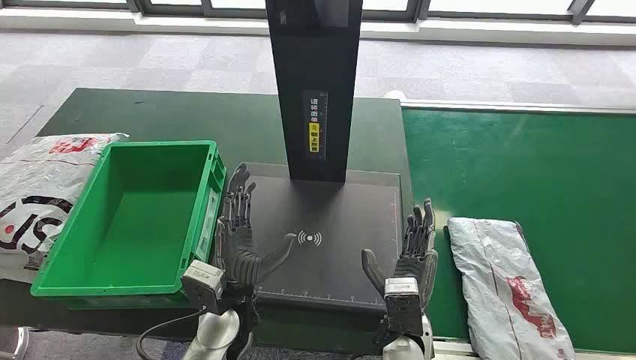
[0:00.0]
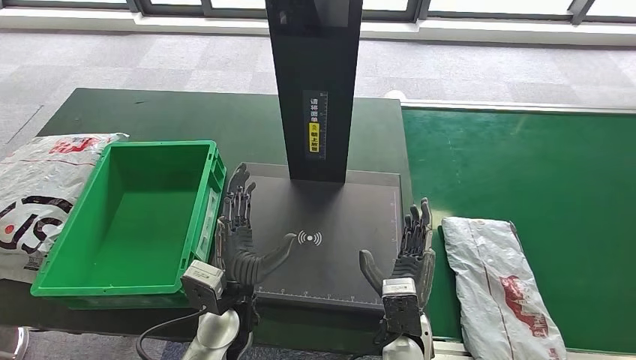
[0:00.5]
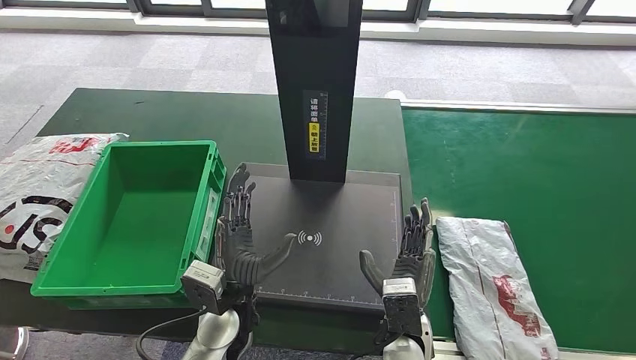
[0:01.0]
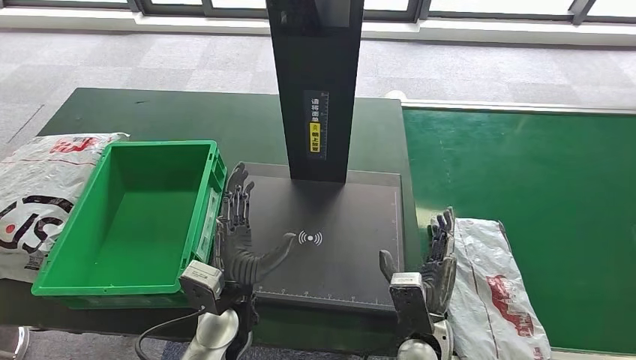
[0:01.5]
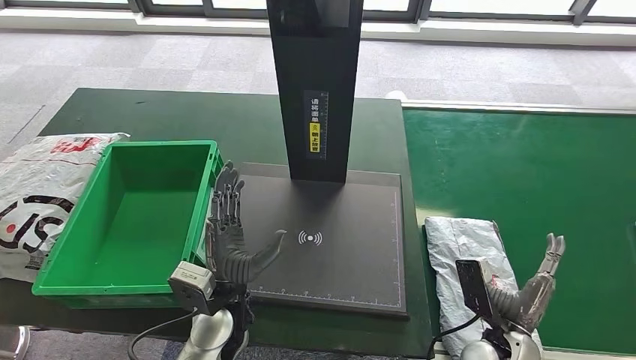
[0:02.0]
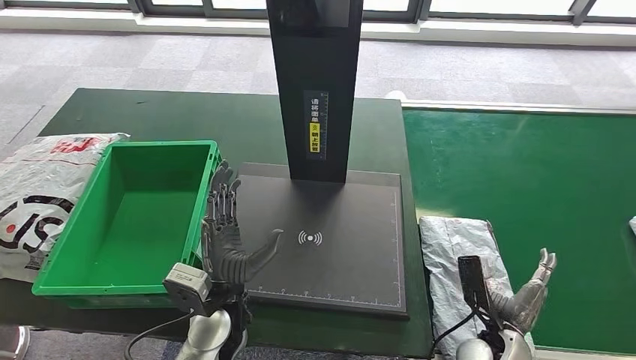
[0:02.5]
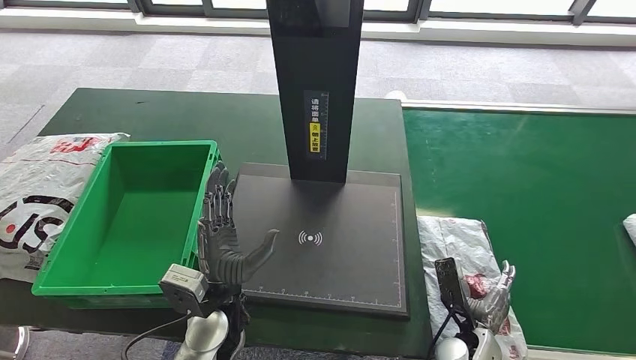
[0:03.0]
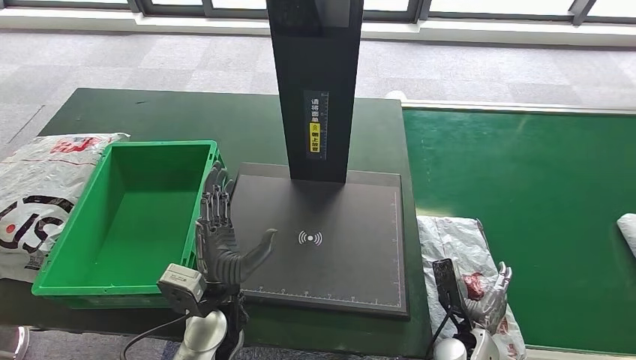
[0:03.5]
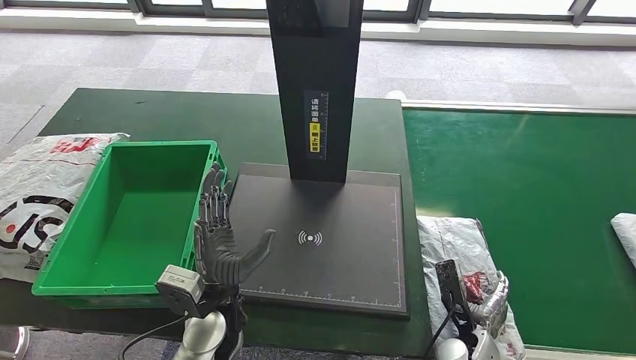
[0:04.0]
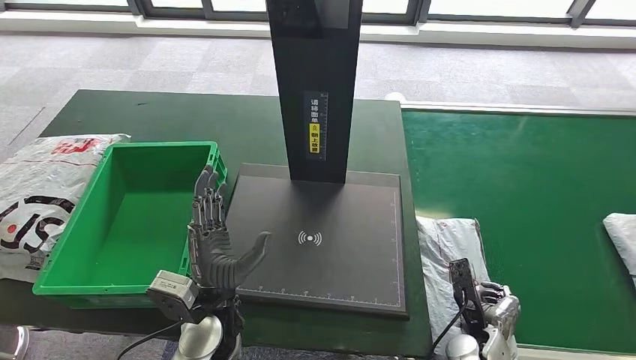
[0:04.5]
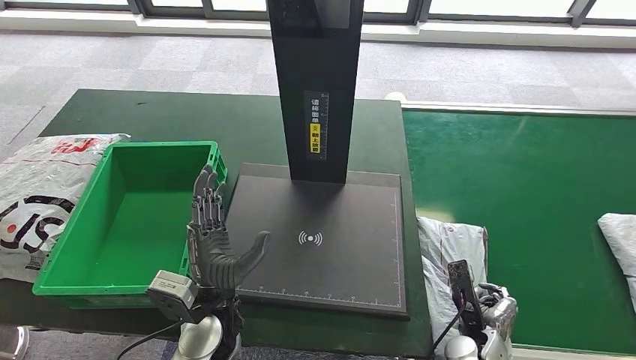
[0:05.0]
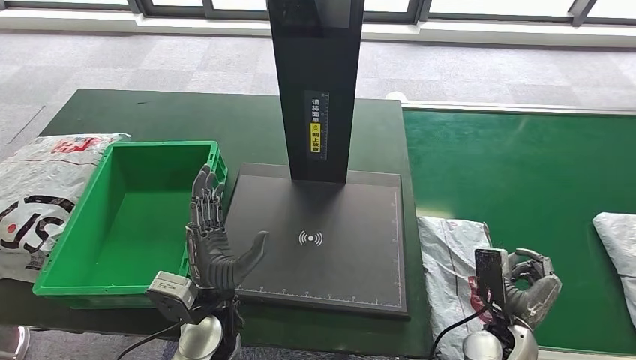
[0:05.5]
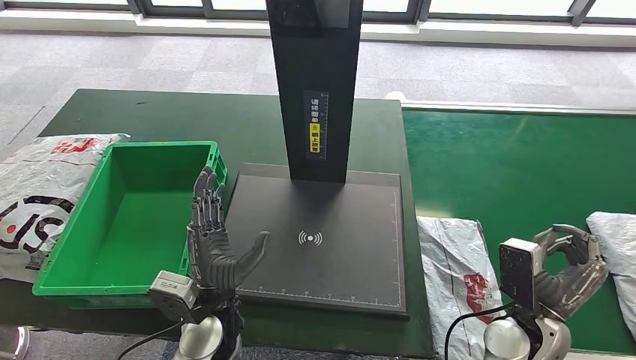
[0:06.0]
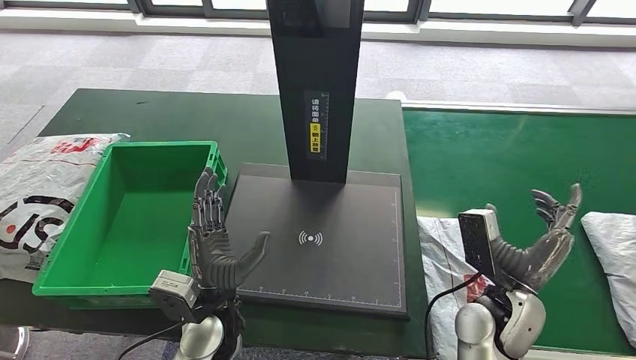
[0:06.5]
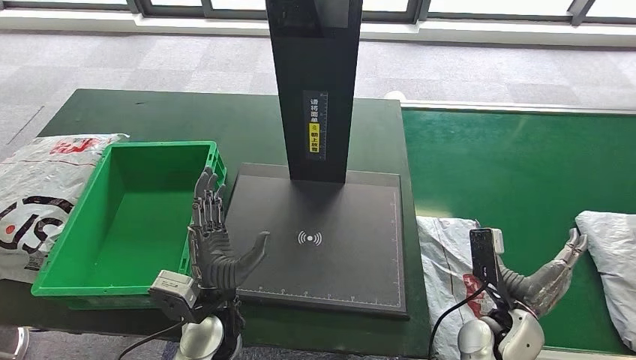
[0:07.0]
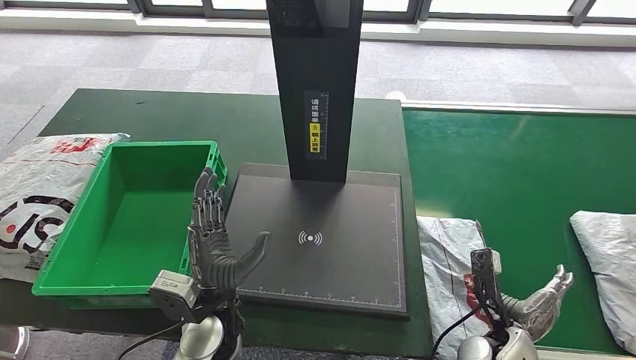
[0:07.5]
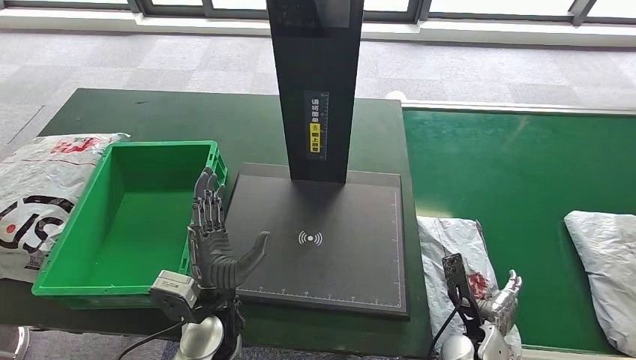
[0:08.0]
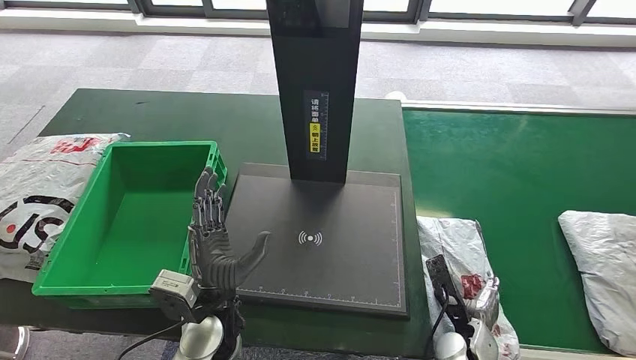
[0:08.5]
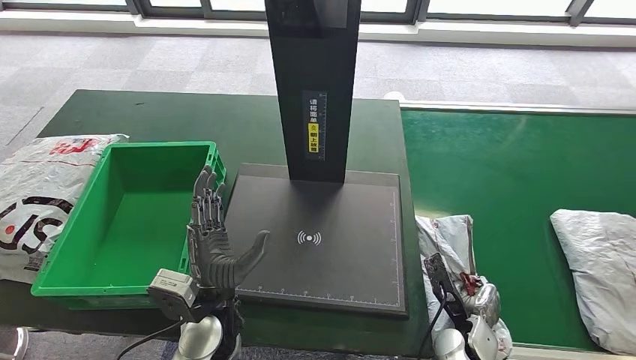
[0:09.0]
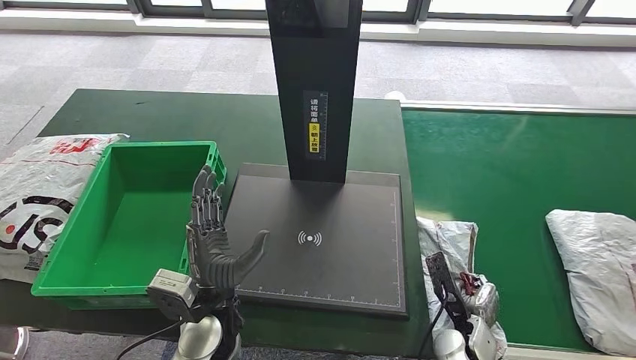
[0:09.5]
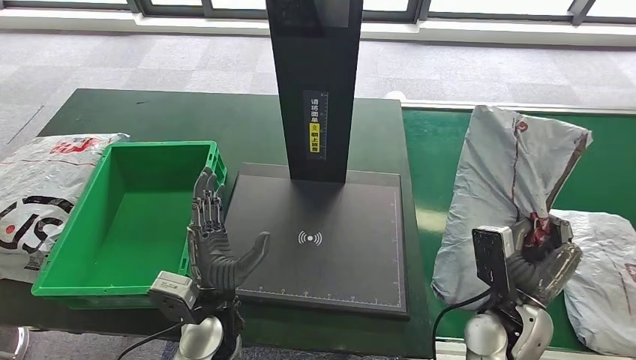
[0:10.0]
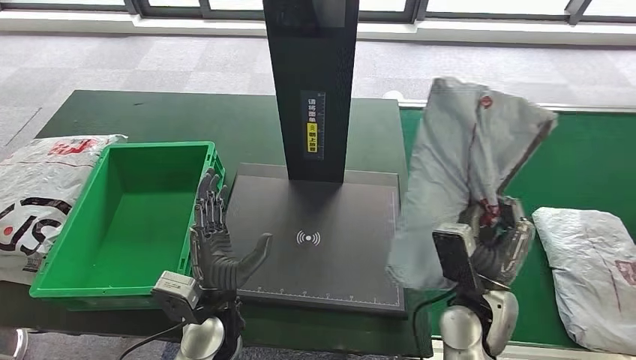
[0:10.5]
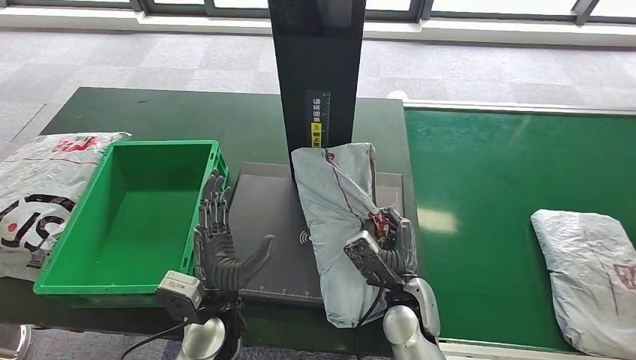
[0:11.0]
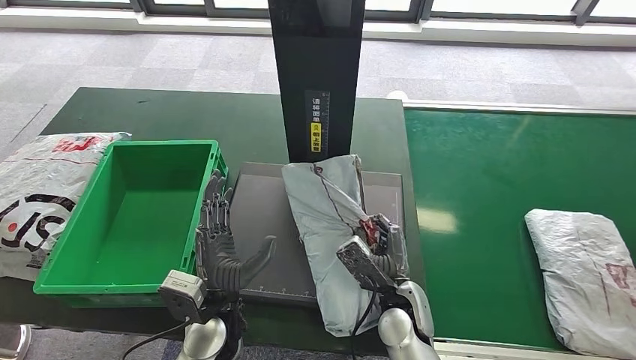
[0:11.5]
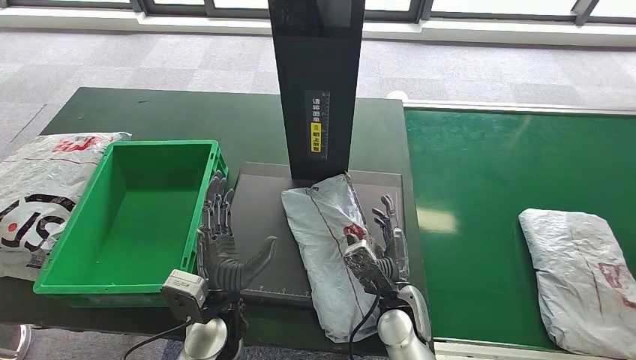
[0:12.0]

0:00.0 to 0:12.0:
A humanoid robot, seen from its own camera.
Step, 0:00.0 to 0:10.0: Take the parcel off the conveyor belt.
0:02.0 to 0:04.0: The right hand goes about 10 cm downward.
0:04.0 to 0:06.0: The right hand travels upward by about 10 cm.
0:06.0 to 0:08.0: The right hand shifts approximately 10 cm downward.
0:08.0 to 0:10.0: The right hand shifts some 10 cm upward.

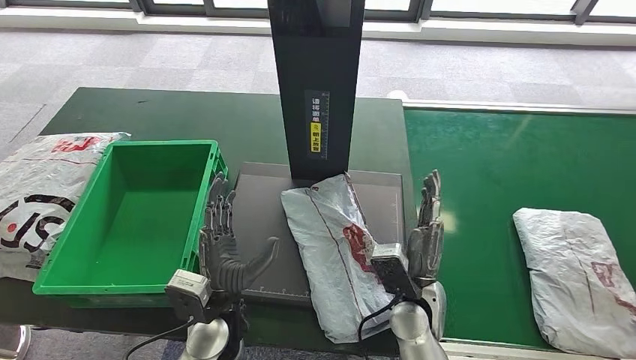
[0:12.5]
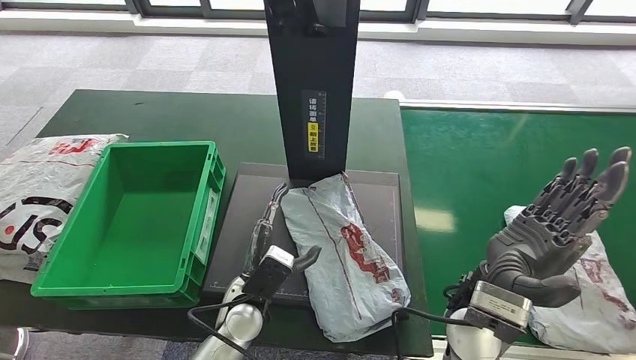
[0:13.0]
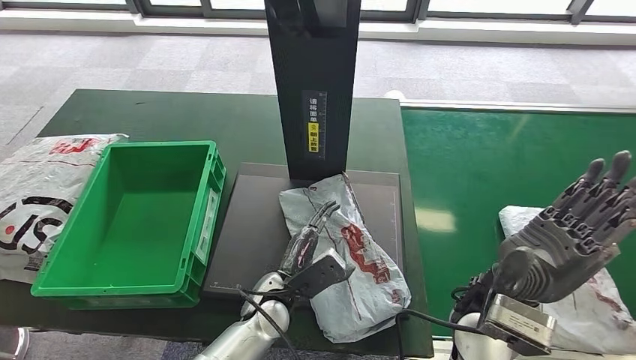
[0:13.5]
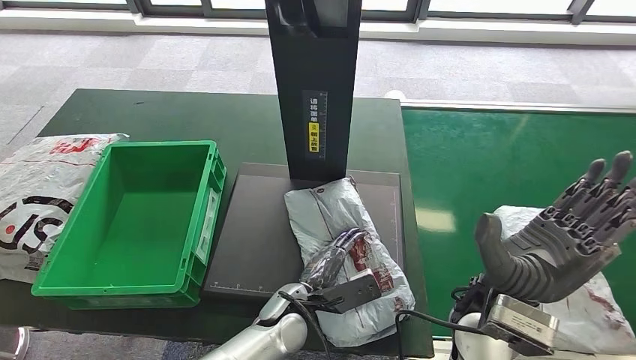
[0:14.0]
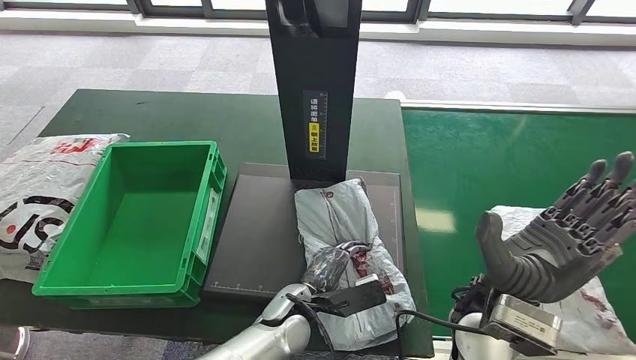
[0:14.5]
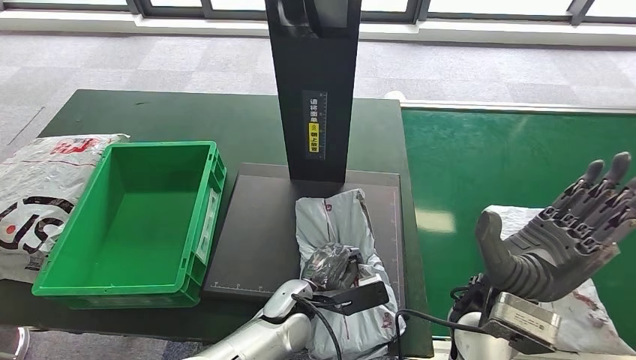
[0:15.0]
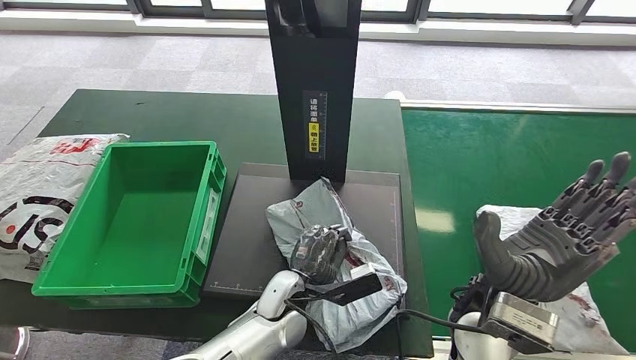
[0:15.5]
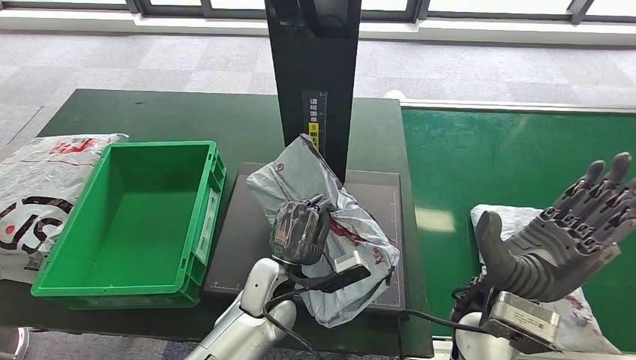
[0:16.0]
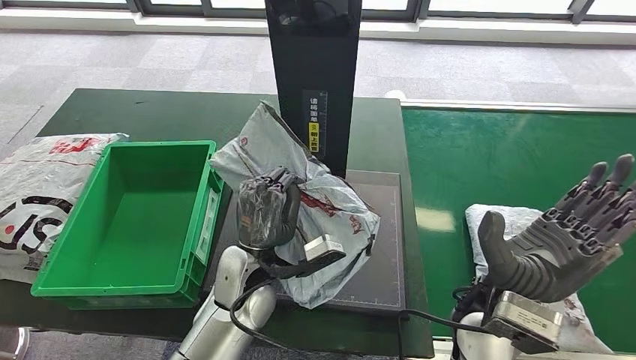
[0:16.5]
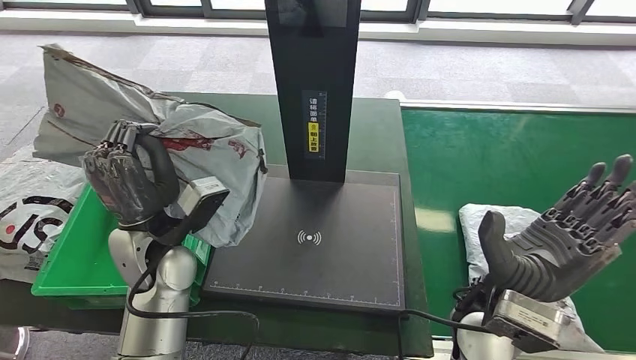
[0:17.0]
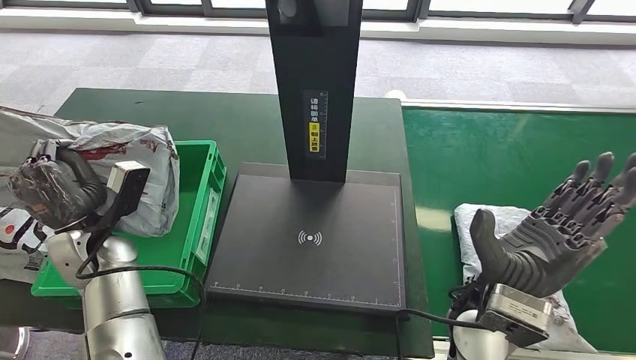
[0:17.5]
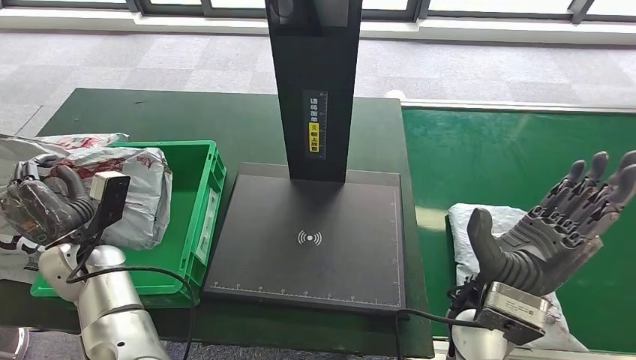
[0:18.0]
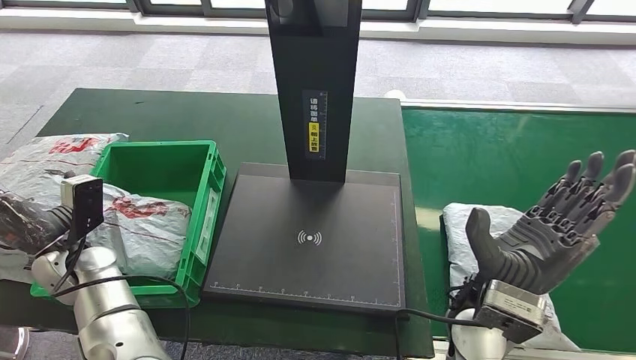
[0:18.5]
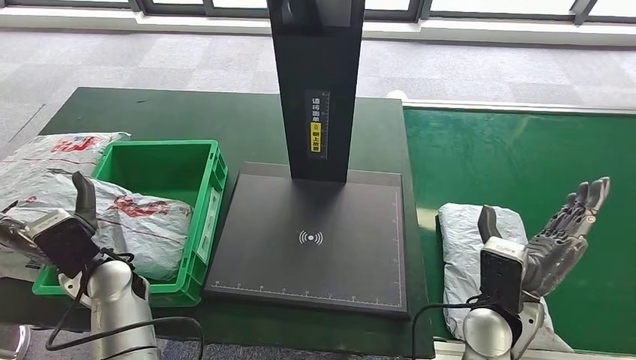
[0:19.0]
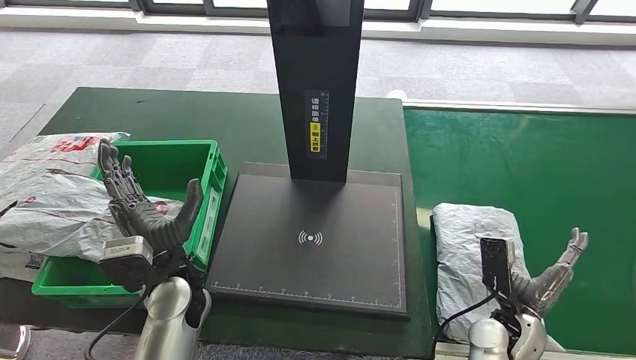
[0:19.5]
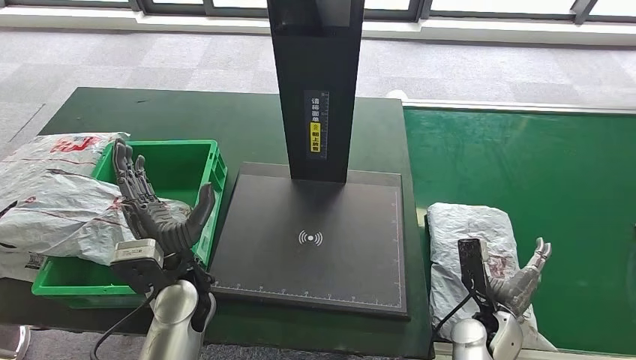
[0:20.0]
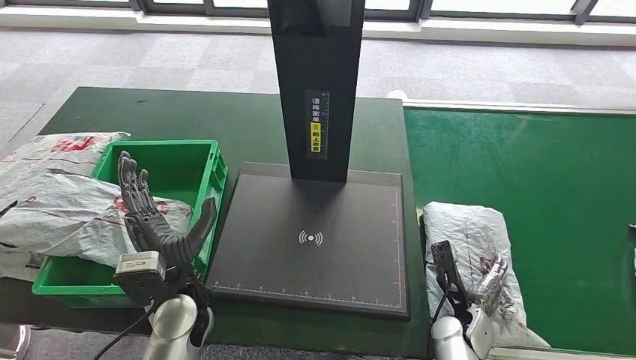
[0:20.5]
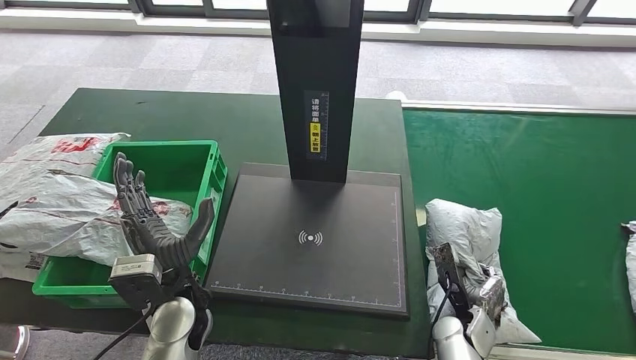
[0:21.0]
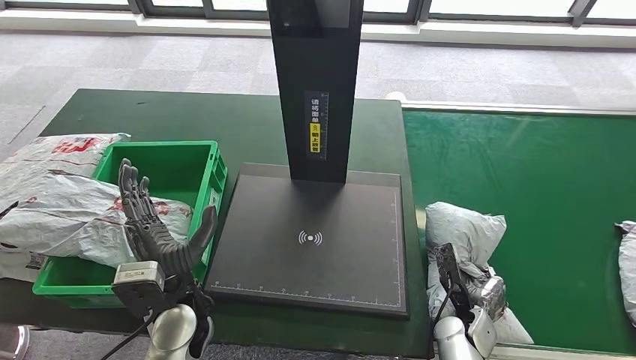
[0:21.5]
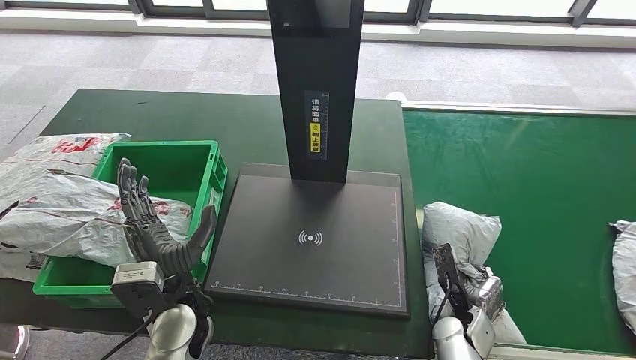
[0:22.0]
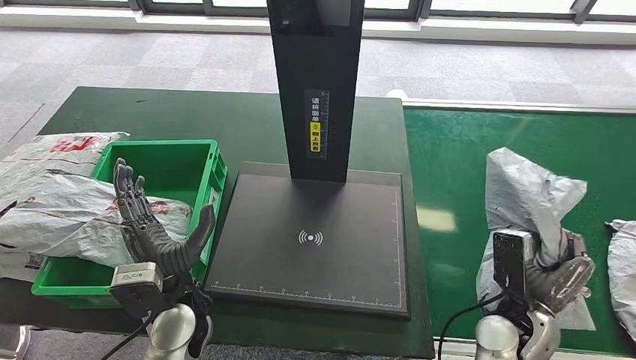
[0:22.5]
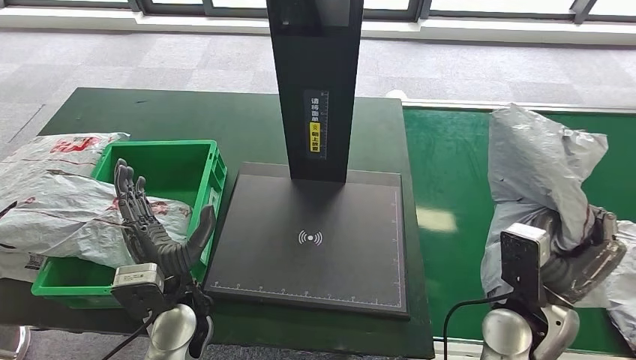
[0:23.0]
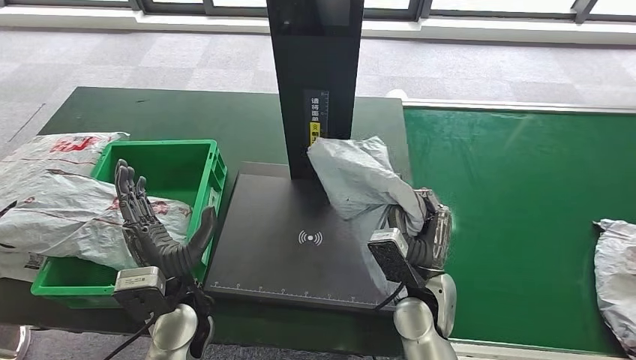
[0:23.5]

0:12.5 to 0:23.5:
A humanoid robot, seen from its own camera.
Step, 0:15.0 to 0:16.5: Pick up the parcel from the inbound machine.
Step, 0:17.0 to 0:19.0: Put the parcel inside the courier box.
Step, 0:20.0 to 0:22.5: Pick up the parcel from the conveyor belt.
0:14.5 to 0:16.0: The left hand moves approximately 5 cm.
0:20.0 to 0:21.5: The right hand ends up about 5 cm from where it was.
